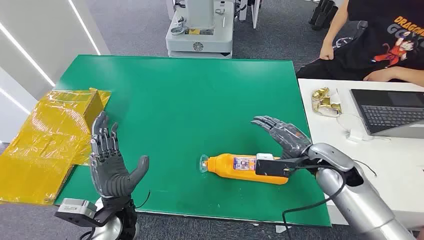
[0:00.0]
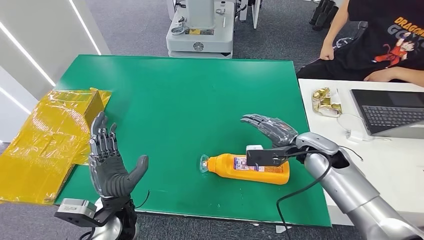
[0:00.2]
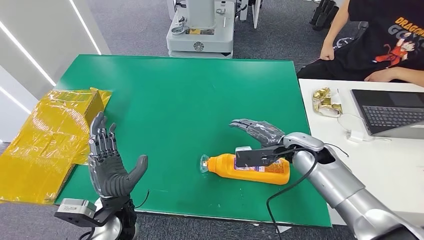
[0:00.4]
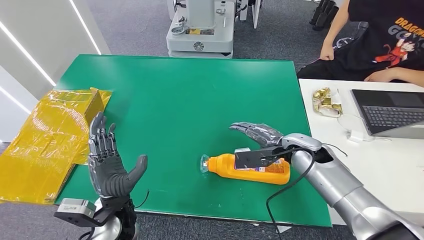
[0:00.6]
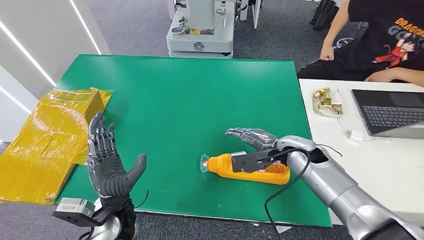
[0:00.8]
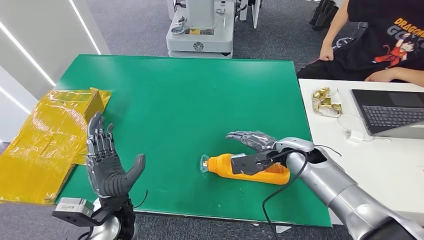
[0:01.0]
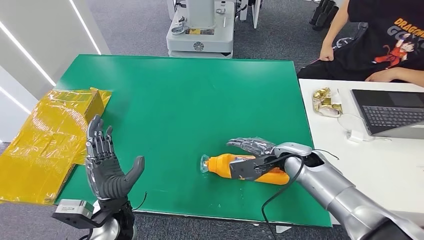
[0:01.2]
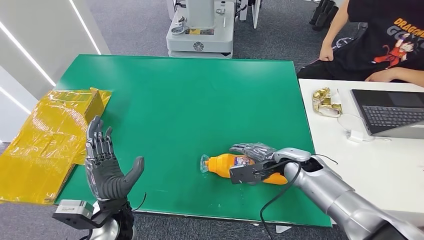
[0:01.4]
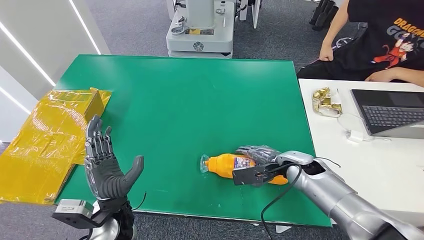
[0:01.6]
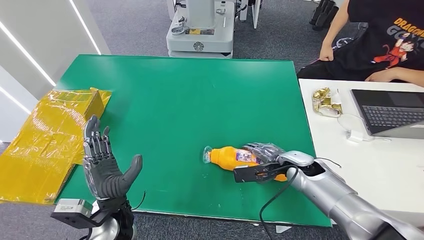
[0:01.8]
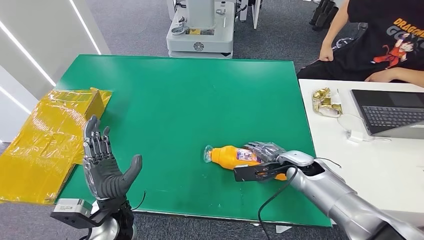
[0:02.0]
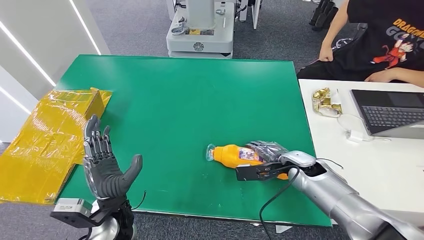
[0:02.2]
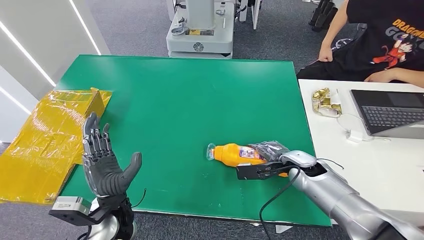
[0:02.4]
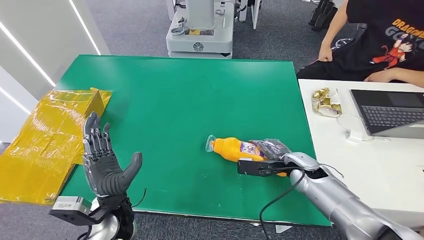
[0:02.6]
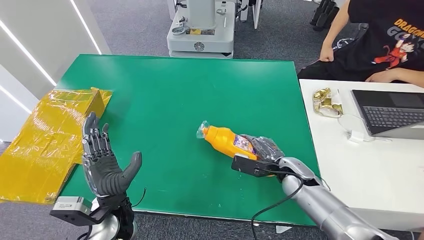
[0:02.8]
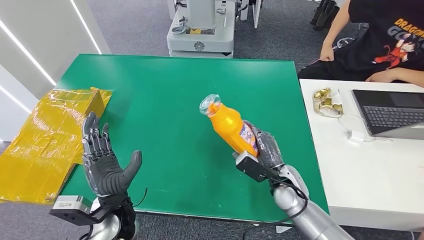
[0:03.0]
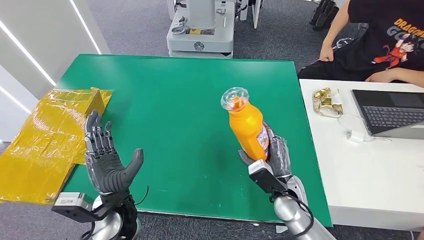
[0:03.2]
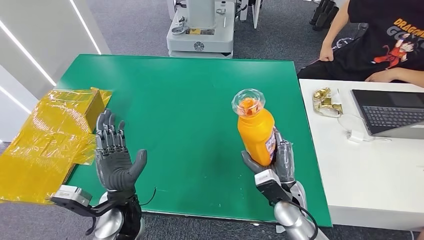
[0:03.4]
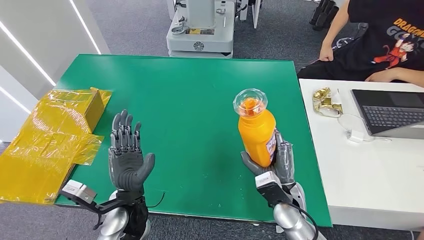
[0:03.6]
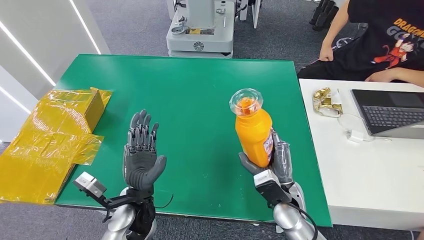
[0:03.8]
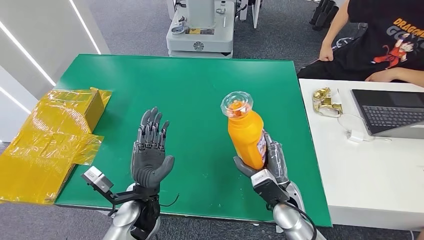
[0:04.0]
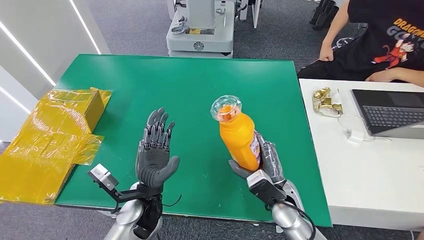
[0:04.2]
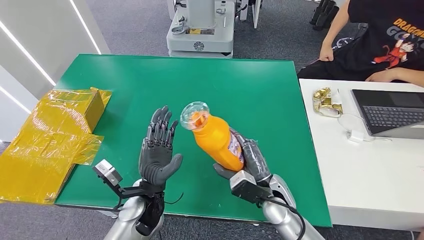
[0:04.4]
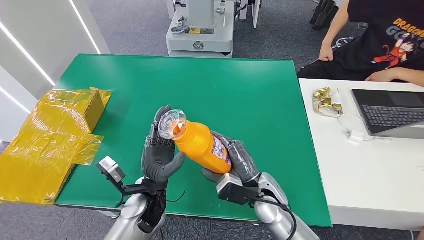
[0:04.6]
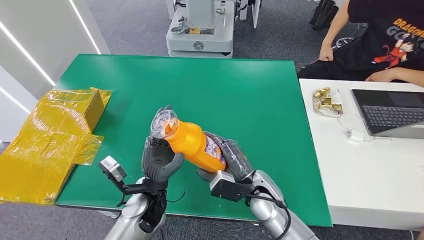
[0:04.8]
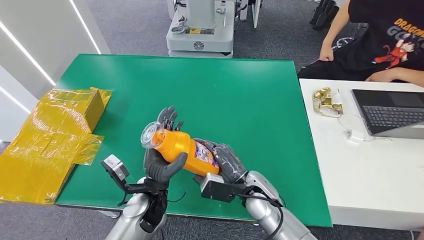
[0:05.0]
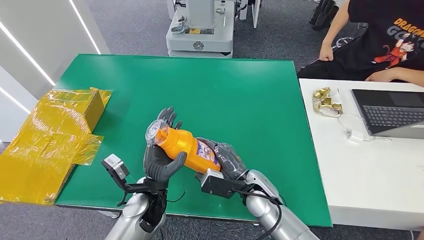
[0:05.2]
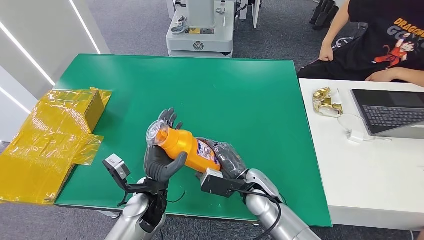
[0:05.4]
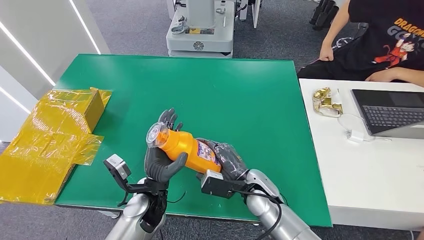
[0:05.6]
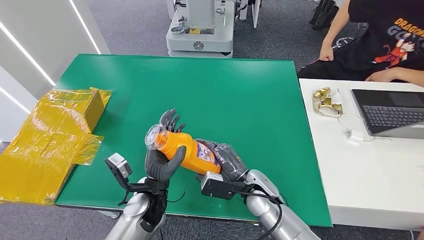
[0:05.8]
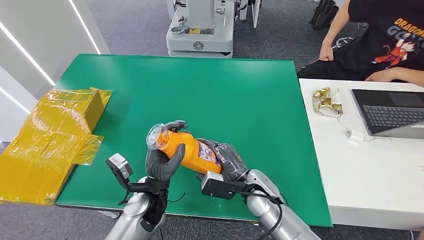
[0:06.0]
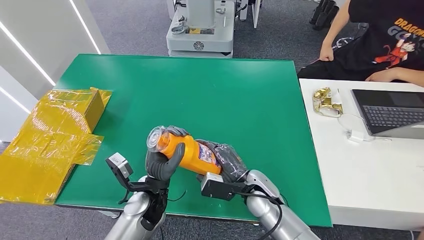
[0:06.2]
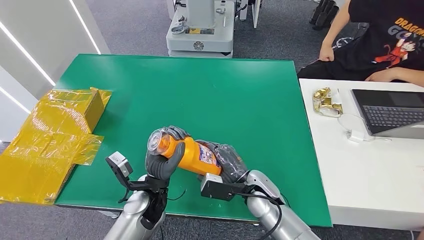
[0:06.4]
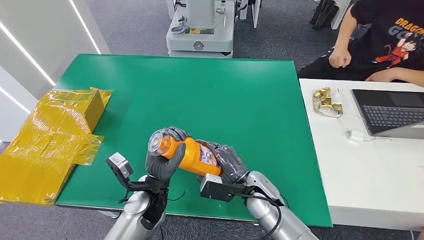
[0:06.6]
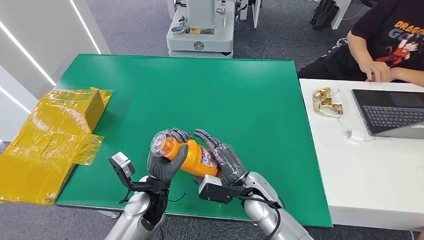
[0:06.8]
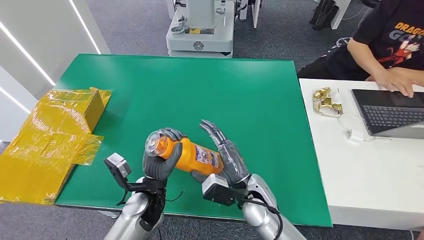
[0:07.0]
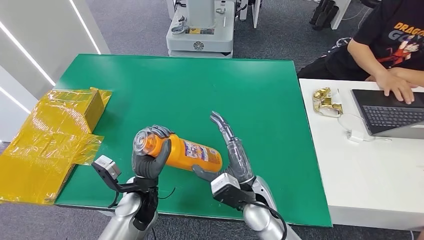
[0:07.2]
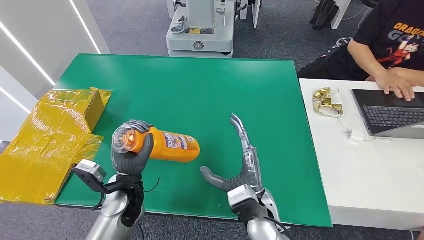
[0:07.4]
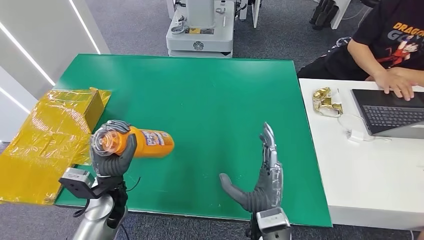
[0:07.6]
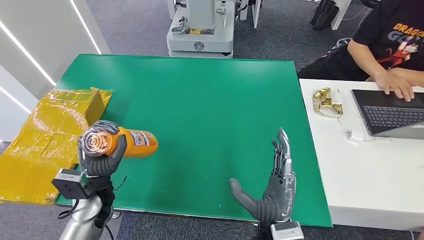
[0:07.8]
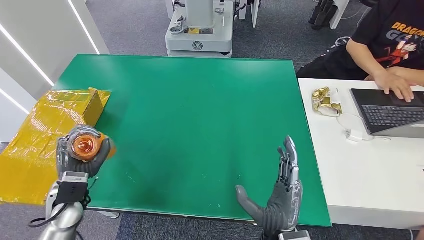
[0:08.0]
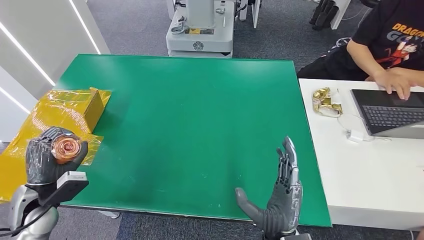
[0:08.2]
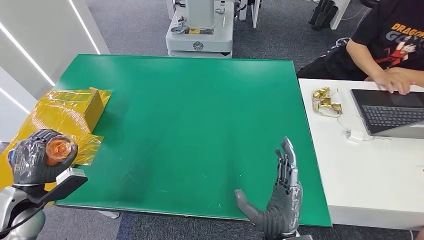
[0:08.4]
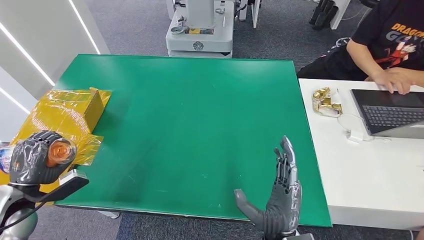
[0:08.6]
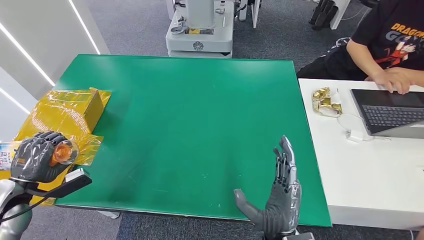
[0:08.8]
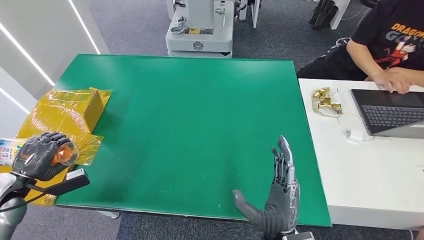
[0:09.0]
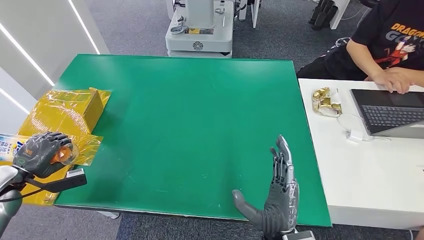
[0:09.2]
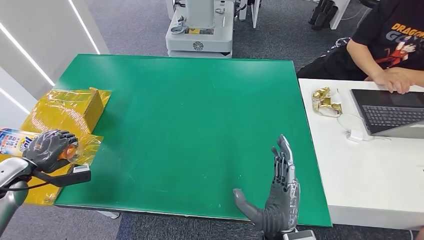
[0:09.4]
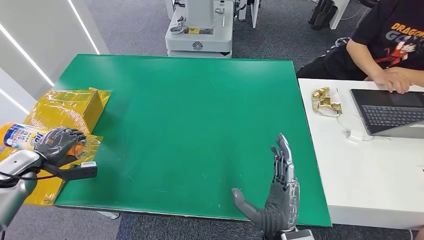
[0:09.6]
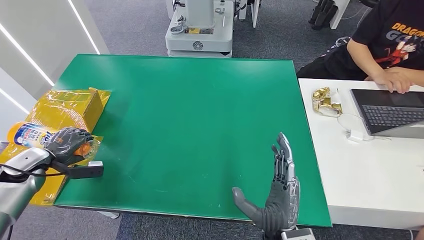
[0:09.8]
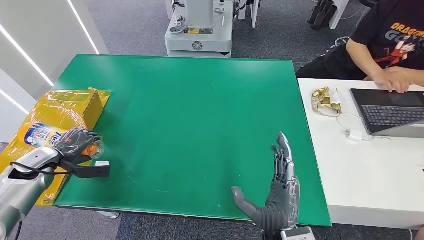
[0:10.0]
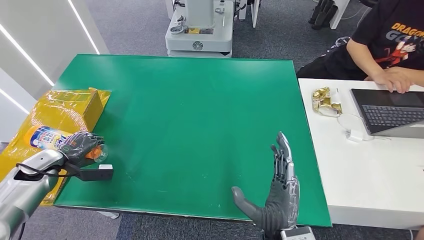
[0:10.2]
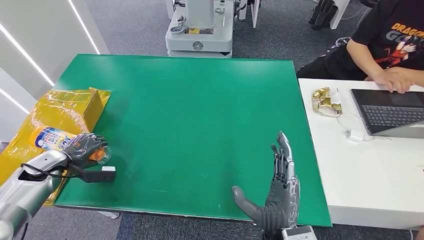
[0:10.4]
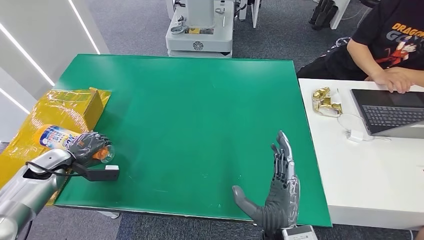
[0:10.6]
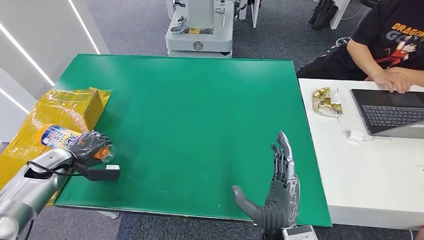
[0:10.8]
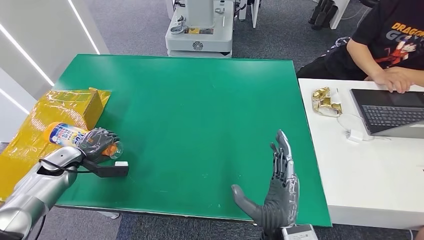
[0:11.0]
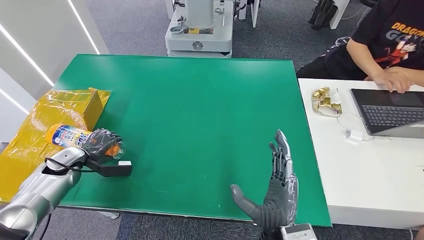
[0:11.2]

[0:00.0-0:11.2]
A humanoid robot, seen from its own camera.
Step, 0:00.0 to 0:05.8: Pick up the bottle from the table.
0:01.6 to 0:03.2: The right hand shifts approximately 10 cm backward.
0:03.2 to 0:04.8: The left hand travels to the right by about 5 cm, while the right hand travels to the left by some 10 cm.
0:04.8 to 0:06.4: The hands stay close to where they were, moving slightly.
0:06.4 to 0:08.0: The right hand is displaced backward by approximately 15 cm. Meanwhile the left hand travels to the left by about 20 cm.
0:08.0 to 0:09.6: The left hand goes about 20 cm to the left.
0:09.6 to 0:11.2: The left hand shifts some 5 cm to the right.

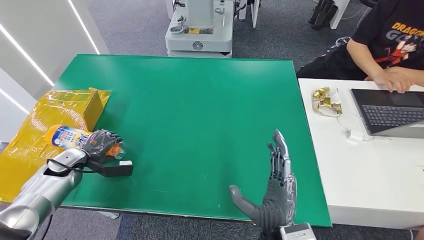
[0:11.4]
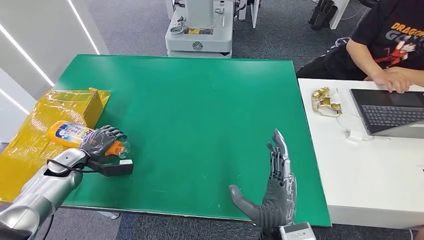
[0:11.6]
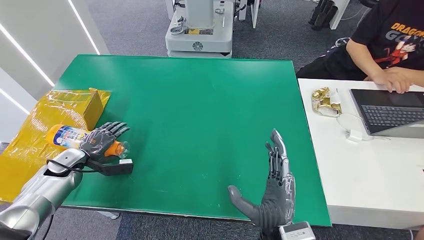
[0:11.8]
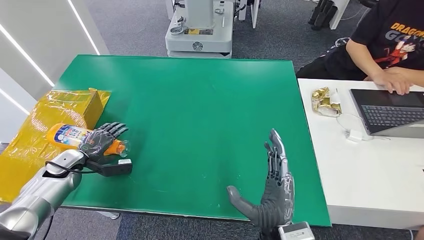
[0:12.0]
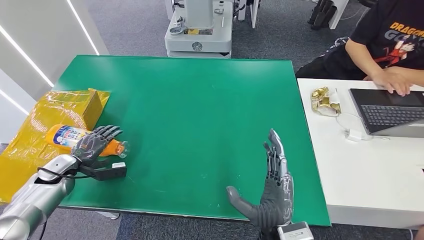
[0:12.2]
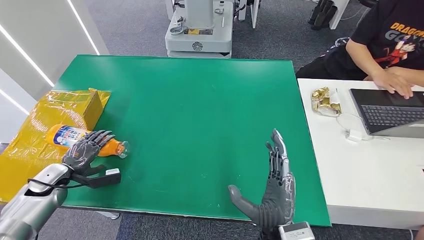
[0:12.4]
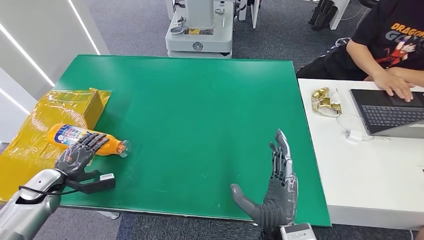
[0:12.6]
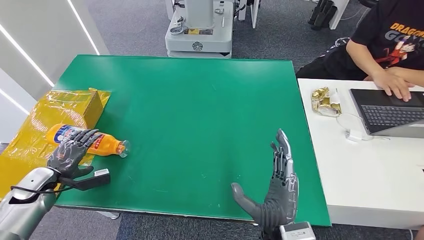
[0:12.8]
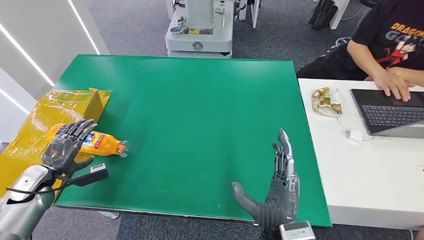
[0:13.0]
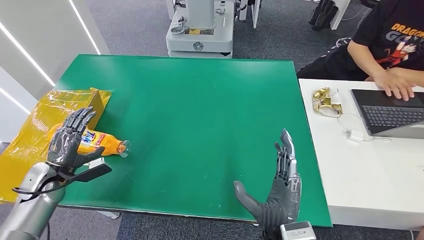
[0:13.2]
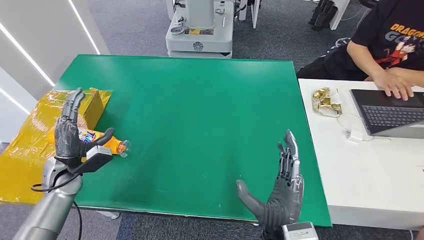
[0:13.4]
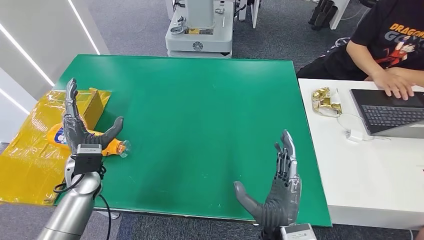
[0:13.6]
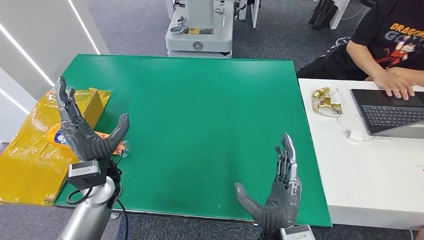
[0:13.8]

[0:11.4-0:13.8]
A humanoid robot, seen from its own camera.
Step, 0:11.4 to 0:13.8: Turn the bottle to the front side.
0:11.4 to 0:12.6: The left hand is displaced backward by about 5 cm.
0:12.6 to 0:13.8: The left hand moves to the right and upward, some 25 cm.

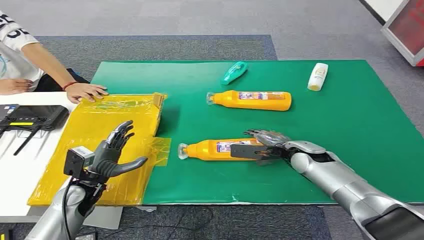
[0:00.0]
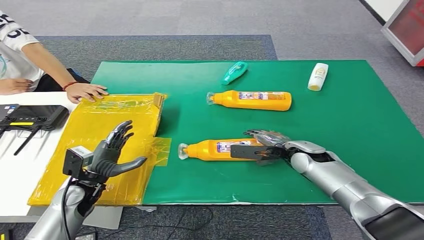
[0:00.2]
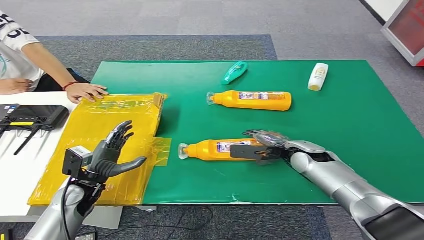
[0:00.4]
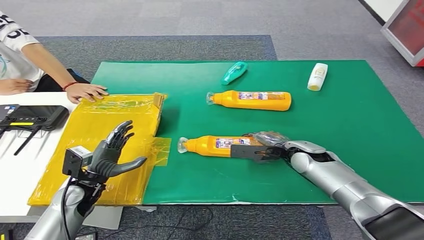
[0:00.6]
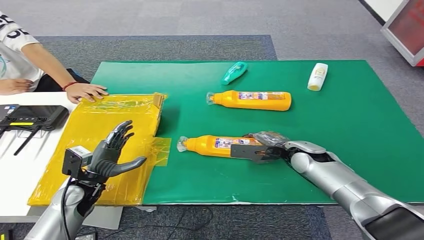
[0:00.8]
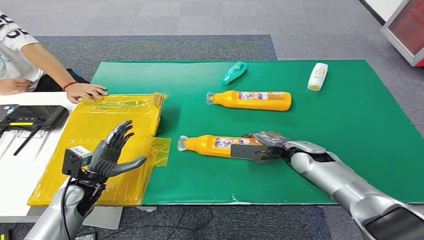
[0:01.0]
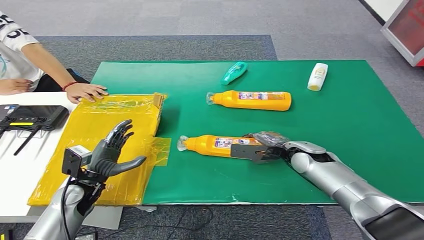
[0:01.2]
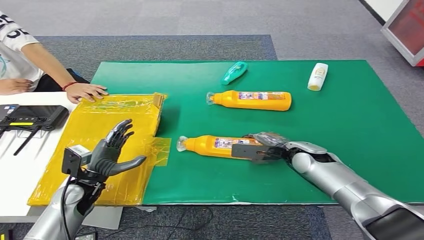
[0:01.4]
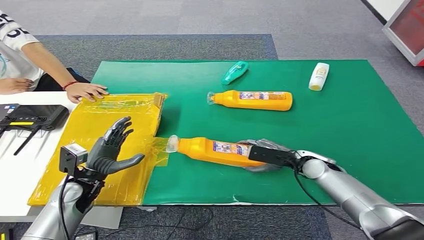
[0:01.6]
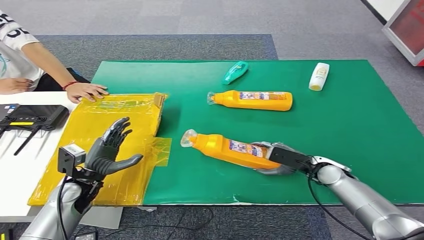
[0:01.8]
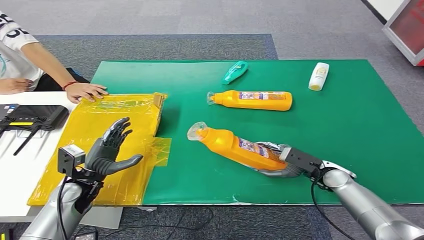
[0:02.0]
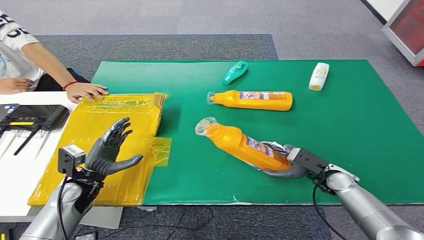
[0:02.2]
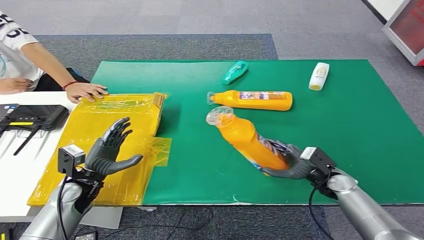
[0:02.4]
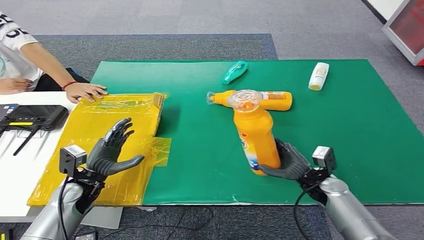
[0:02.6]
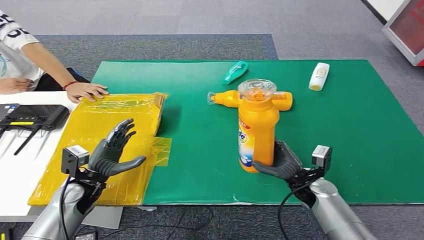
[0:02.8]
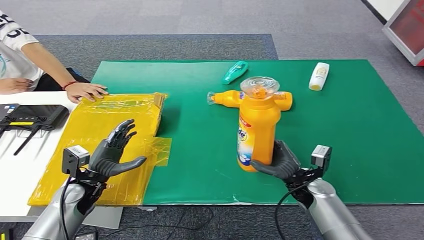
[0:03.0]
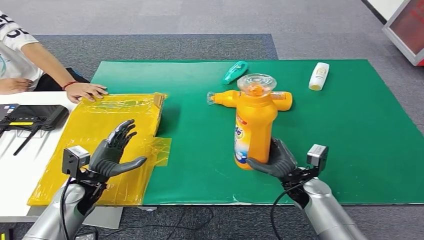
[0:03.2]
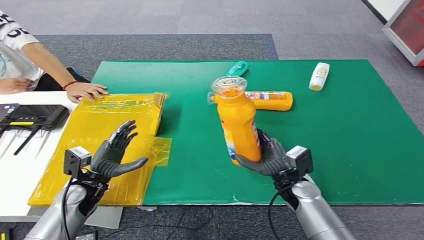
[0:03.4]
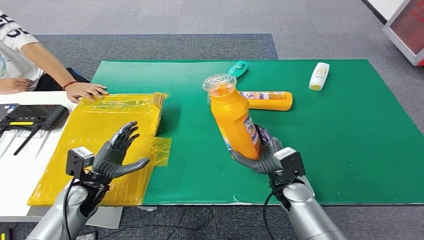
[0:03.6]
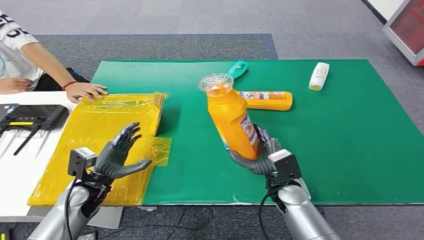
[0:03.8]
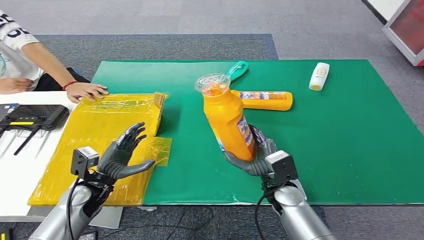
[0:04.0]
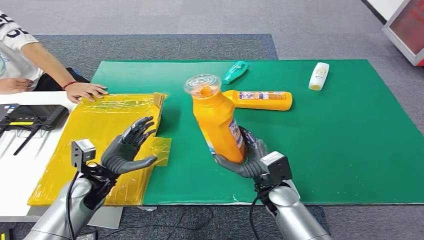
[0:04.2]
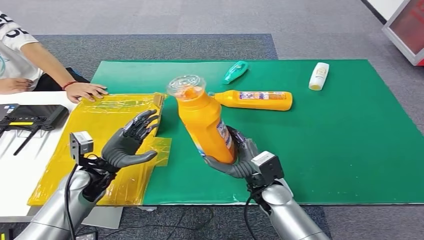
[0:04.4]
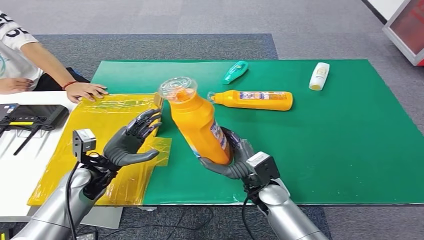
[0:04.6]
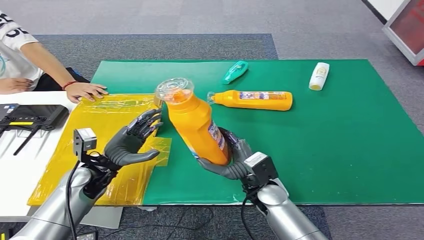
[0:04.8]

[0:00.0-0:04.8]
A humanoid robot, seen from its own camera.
Step, 0:00.0 to 0:04.2: Pick up the bottle from the table.
0:01.6 to 0:03.2: The right hand travels backward and to the left by about 10 cm.
0:03.2 to 0:04.8: The right hand heads to the left, covering roughly 10 cm; the left hand changes place by roughly 5 cm.
